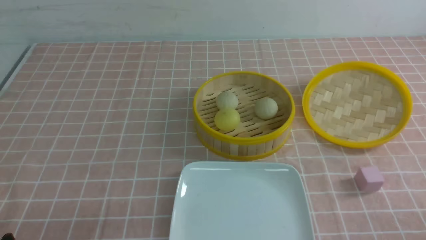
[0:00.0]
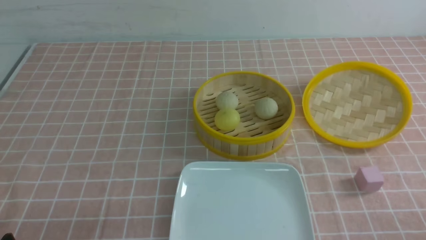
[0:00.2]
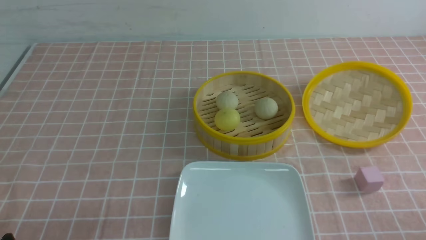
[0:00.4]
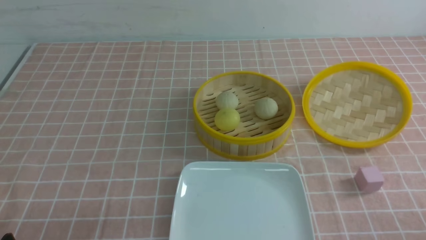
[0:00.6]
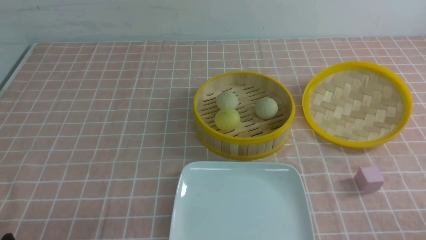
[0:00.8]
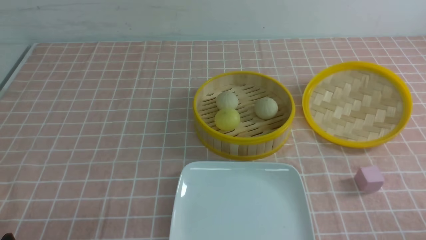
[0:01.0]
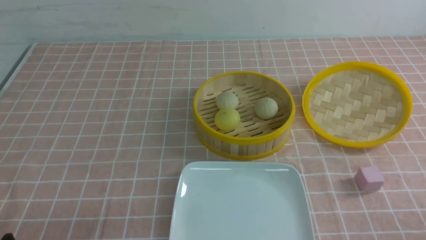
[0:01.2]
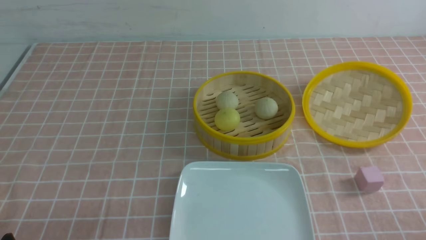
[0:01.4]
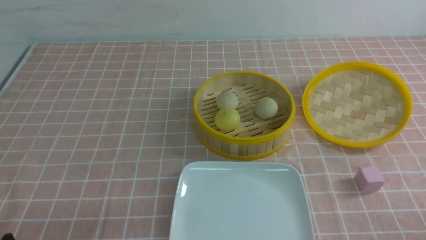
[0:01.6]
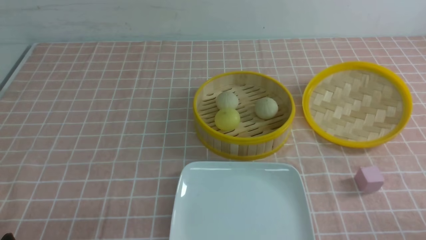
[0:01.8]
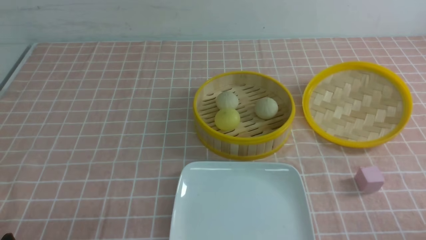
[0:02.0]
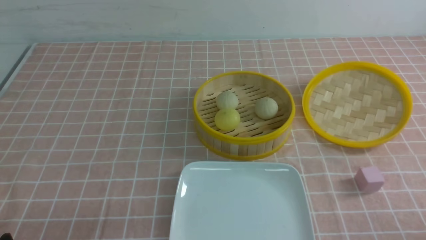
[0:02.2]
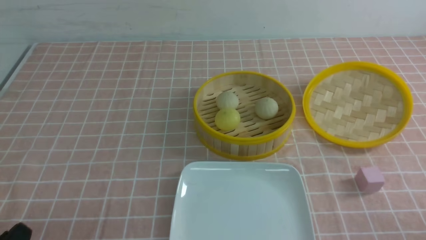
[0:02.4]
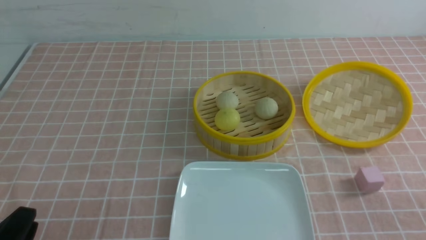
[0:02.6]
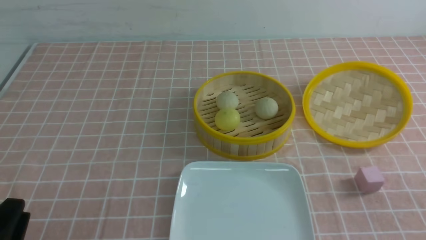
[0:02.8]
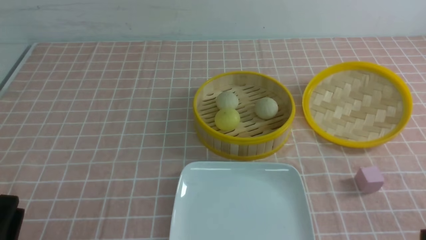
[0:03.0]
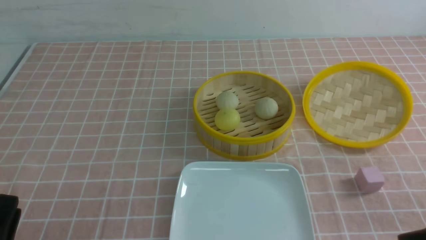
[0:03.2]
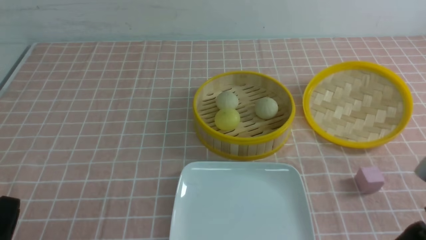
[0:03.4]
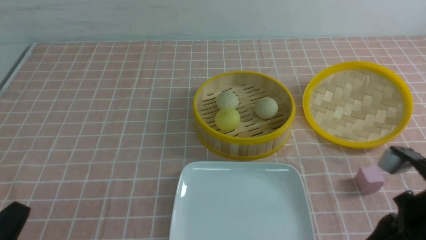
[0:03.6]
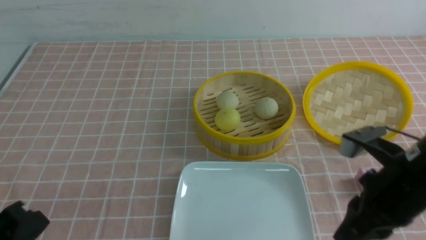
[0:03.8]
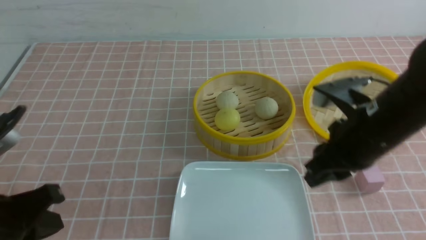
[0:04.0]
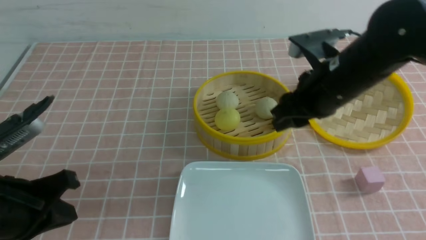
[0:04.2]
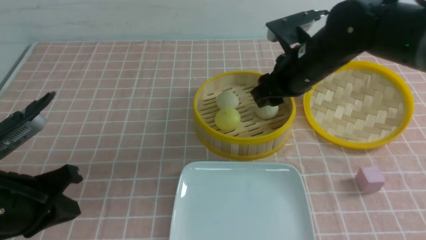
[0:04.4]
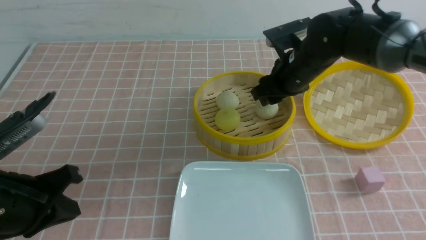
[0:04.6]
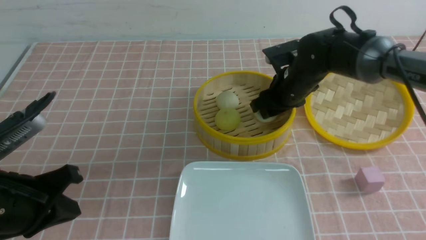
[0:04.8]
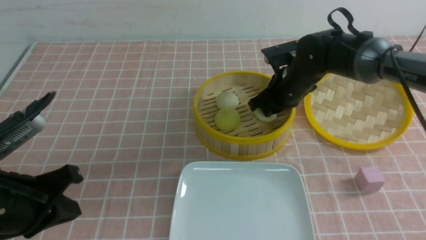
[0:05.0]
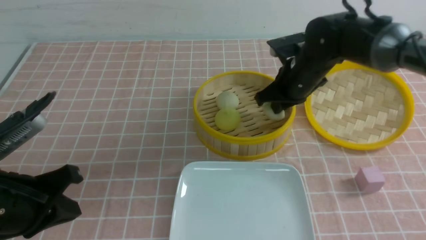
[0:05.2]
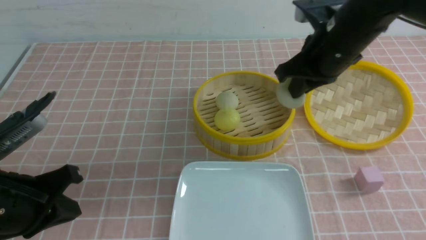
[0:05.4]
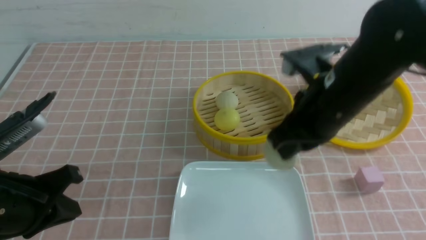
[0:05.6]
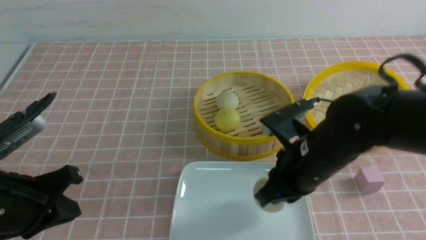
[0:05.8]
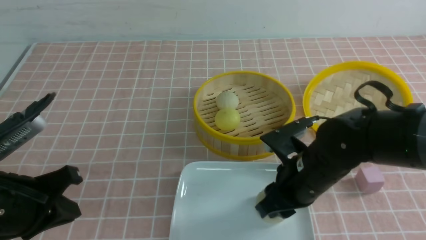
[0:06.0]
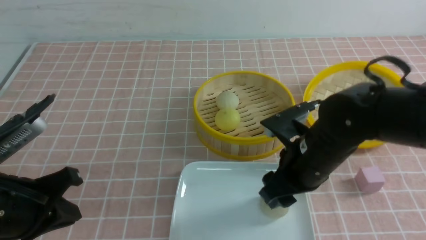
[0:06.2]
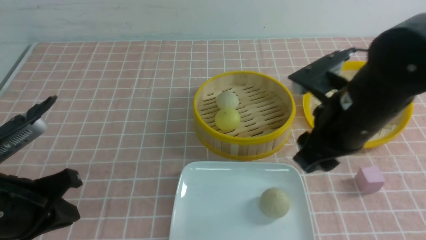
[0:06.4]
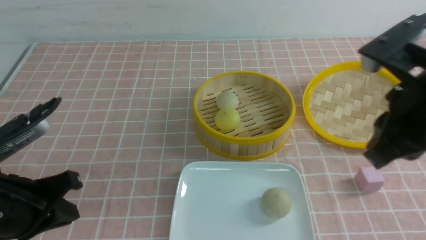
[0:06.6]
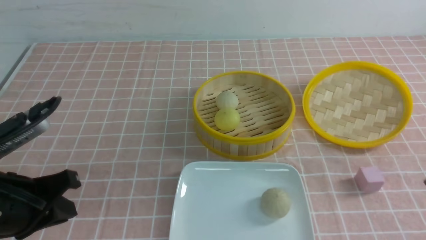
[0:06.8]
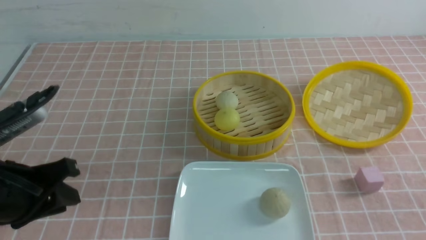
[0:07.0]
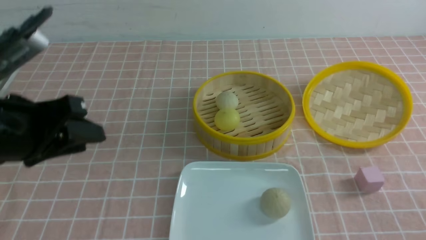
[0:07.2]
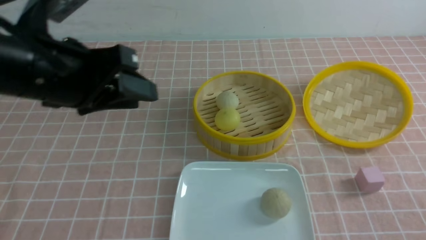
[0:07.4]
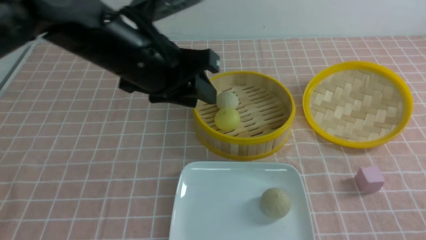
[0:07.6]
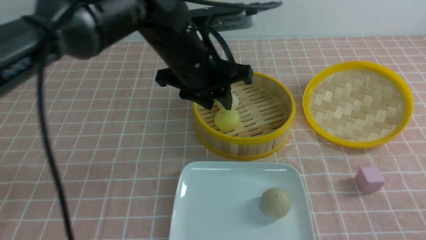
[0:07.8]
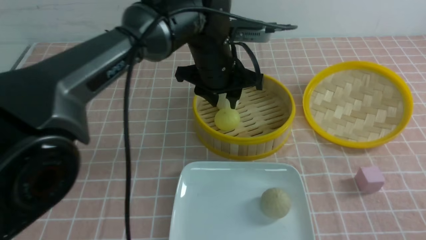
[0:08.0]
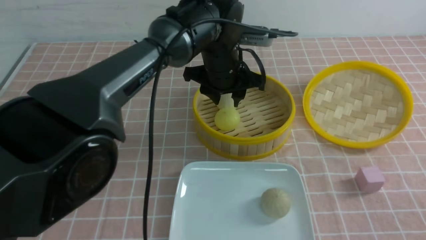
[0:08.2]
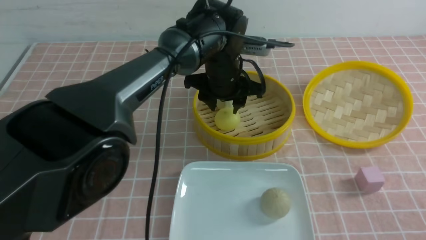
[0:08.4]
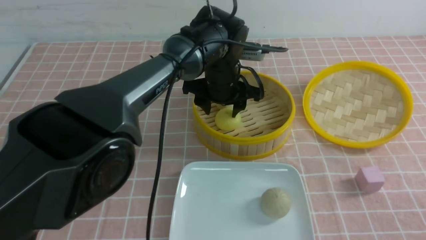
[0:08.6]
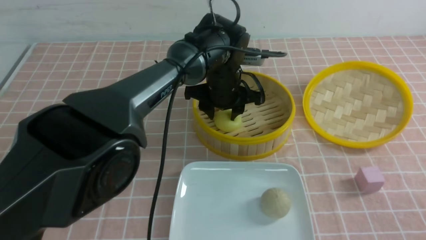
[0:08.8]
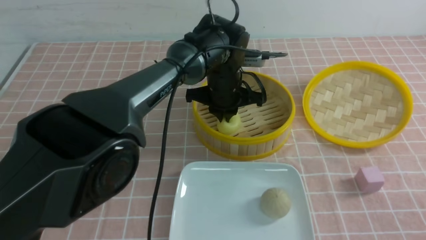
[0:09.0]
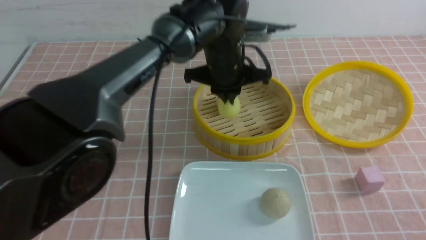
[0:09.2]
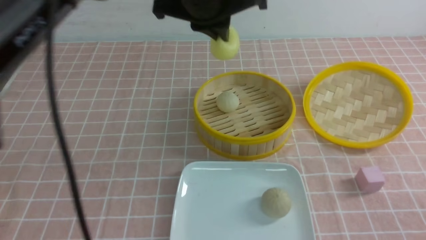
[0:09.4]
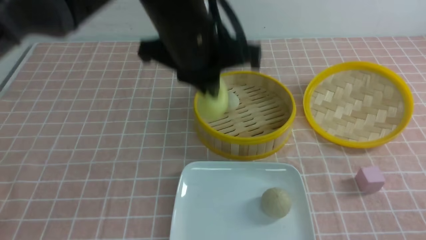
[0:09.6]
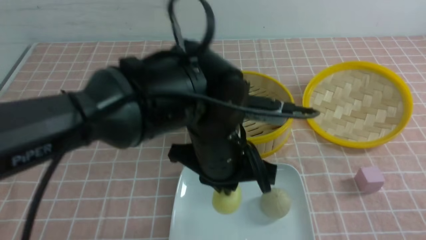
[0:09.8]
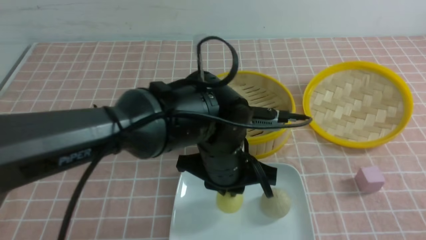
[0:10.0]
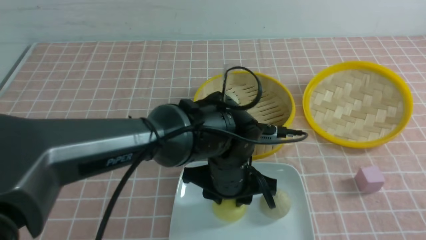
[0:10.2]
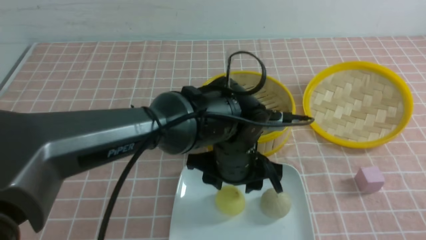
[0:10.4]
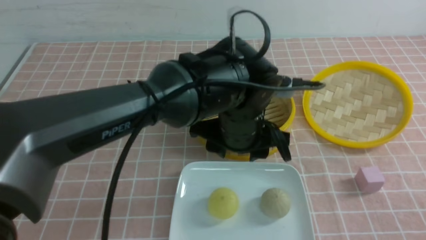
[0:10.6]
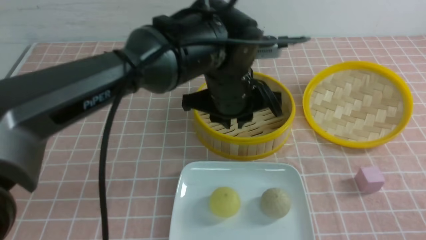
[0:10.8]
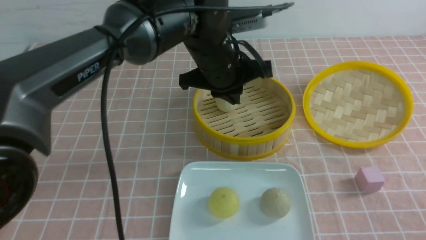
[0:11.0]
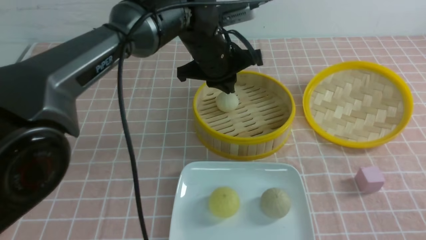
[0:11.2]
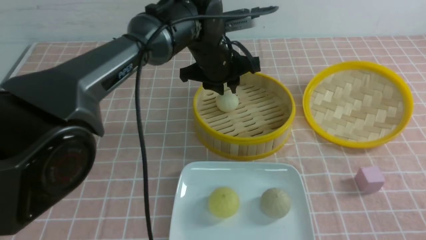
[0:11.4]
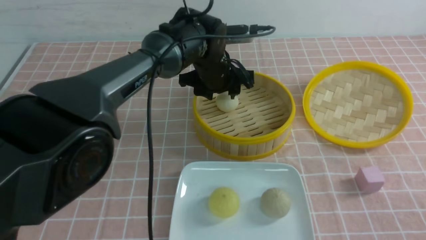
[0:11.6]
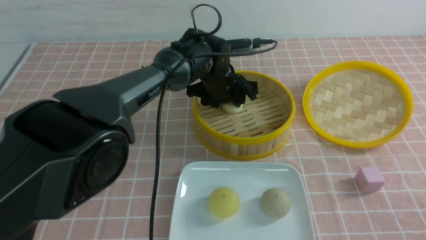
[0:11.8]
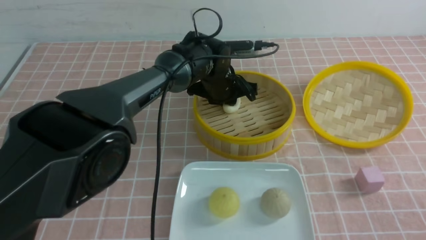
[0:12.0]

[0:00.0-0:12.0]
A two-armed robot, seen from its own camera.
Step, 0.0 to 5.0 s: use the right arm to grab the steamed stuffed bun that is closest to it.
Step, 5.2 to 6.2 s: use the right arm to put the steamed stuffed bun into the plate.
Step, 6.4 to 9.0 s: use the left arm to grab the steamed stuffed bun that is closest to it.
Step, 9.2 to 10.2 s: use the left arm to put the steamed stuffed bun into the plate.
Step, 10.6 to 12.0 s: use the left arm to grab the steamed stuffed bun that is closest to it.
3.0 to 4.4 s: The right gripper moves forward and to the left, some 35 cm, and opens, while the left gripper travels forward and upward by about 10 cm, and closes up.
4.4 to 6.0 s: The right gripper is displaced backward and downward by roughly 15 cm, and closes, then reopens.
6.0 to 7.6 s: The right gripper travels backward and to the right by about 25 cm, and closes its fingers; the left gripper goes about 20 cm to the right, forward and upward, and opens.
7.6 to 9.0 s: The left gripper heads forward, downward and to the right, covering some 20 cm, and closes.
9.0 to 10.4 s: The left gripper moves backward, some 15 cm, travels upward and back again, about 15 cm each way, and opens its fingers.
10.4 to 12.0 s: The left gripper moves forward, some 20 cm, and closes.

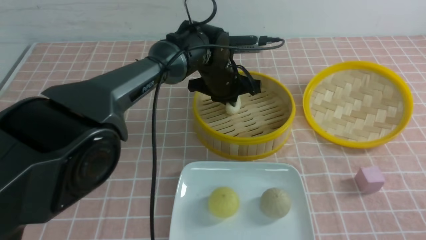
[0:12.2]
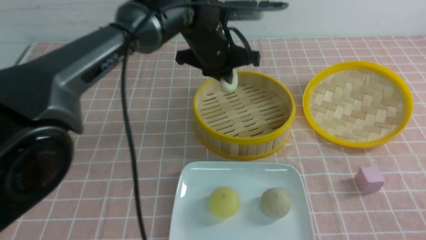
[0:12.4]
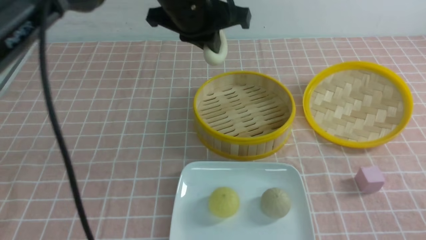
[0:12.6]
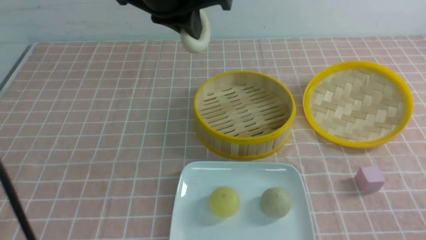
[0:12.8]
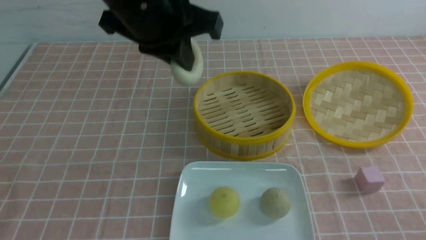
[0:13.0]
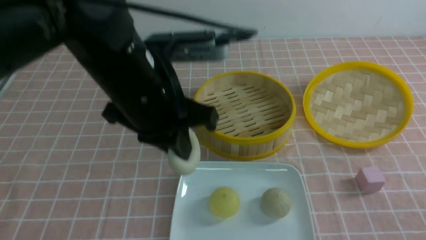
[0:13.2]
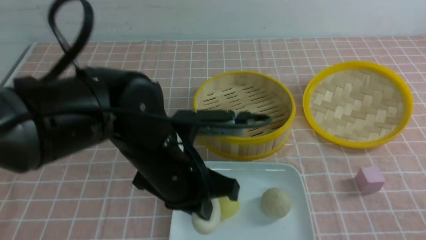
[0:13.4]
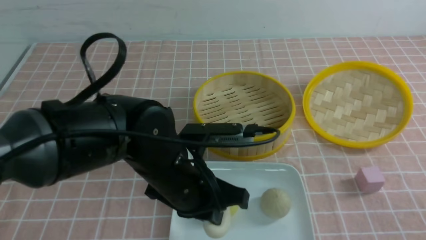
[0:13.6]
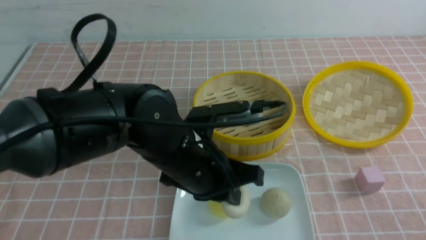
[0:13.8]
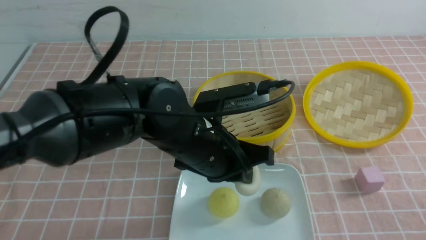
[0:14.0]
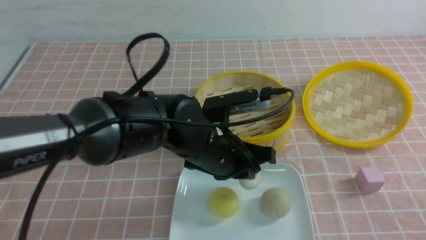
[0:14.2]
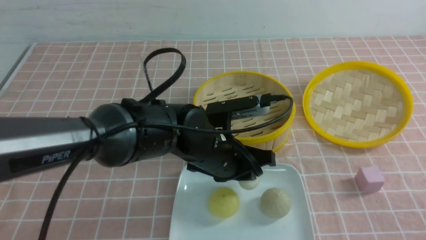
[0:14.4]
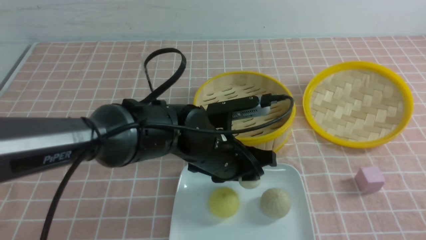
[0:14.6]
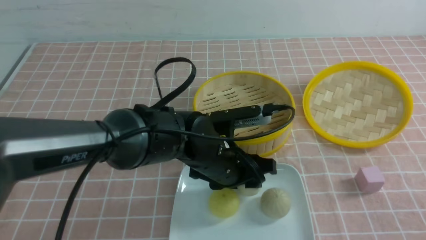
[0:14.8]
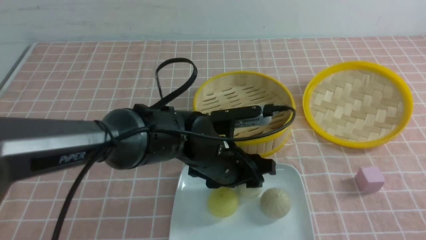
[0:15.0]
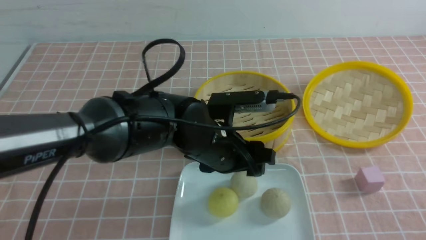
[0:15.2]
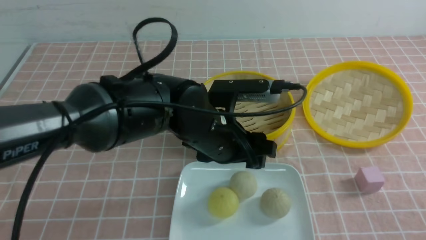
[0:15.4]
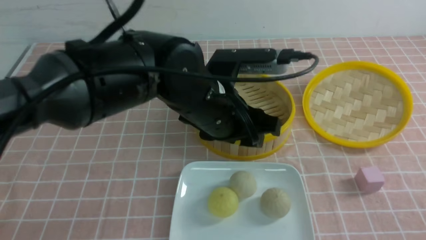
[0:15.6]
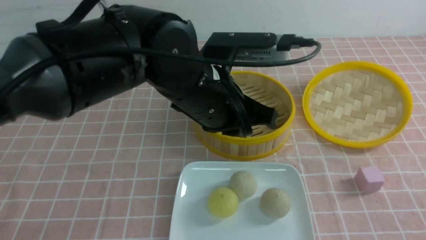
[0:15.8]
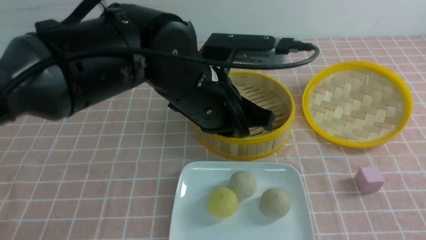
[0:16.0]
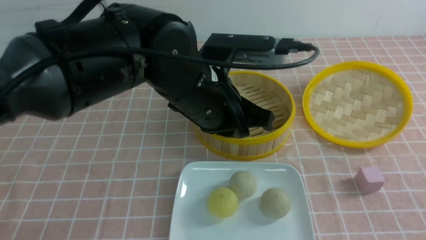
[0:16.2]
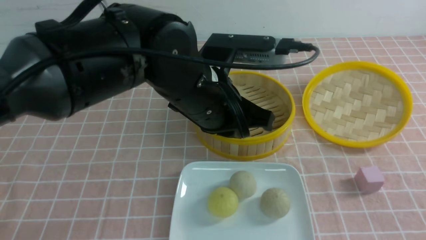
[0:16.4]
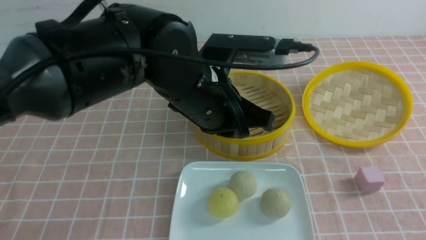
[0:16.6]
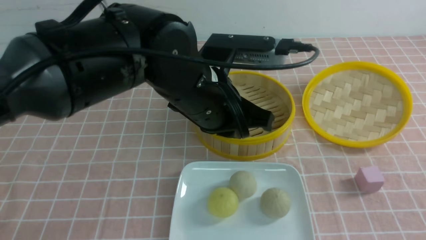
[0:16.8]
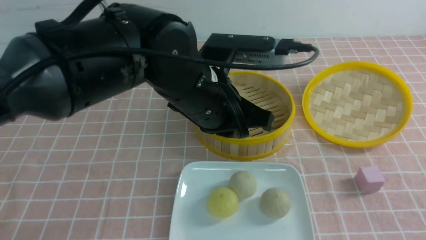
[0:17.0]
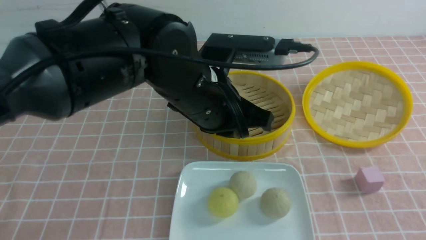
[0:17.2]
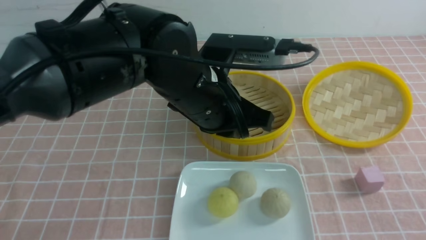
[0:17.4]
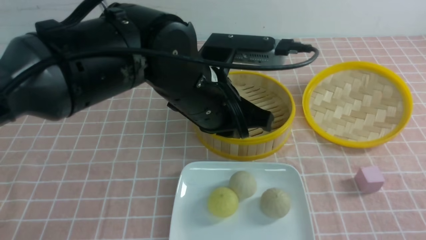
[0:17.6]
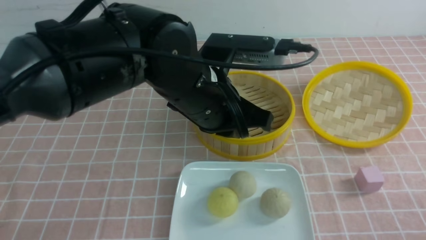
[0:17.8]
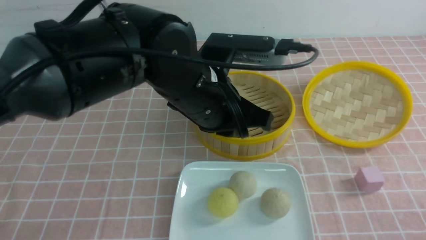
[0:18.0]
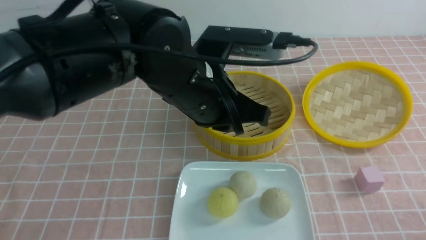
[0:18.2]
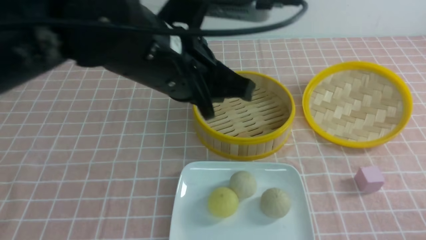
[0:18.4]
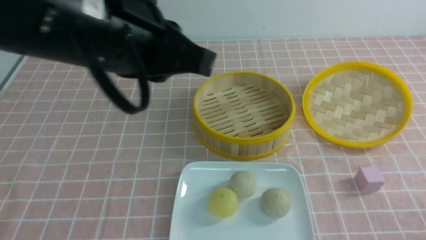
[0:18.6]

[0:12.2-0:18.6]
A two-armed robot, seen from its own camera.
Step, 12.2 to 15.0 s: use the left arm to put the steamed stuffed bun into the plate.
12.2 to 13.8 s: The left gripper is displaced backward by about 20 cm.
13.8 to 15.4 s: The left gripper opens up.
15.4 to 17.0 s: The left gripper goes roughly 5 cm upward, and closes up. Meanwhile the right gripper closes.
17.0 to 18.6 s: The right gripper shifts roughly 10 cm downward. The left gripper goes some 15 cm upward, to the left and backward.
